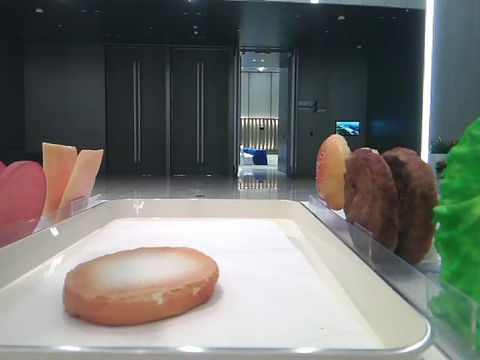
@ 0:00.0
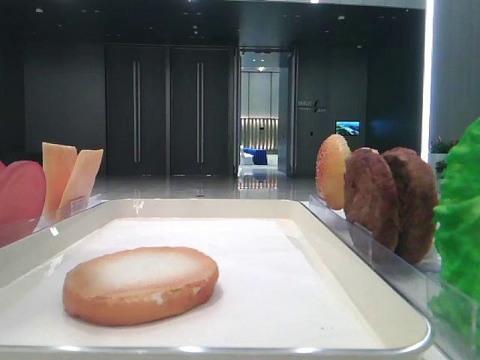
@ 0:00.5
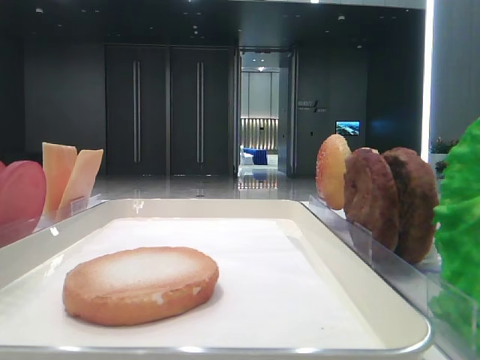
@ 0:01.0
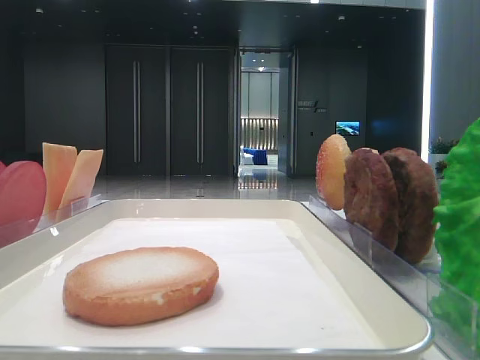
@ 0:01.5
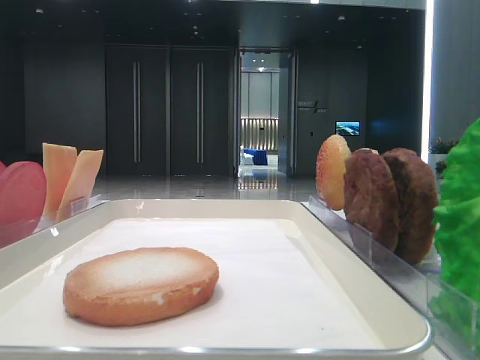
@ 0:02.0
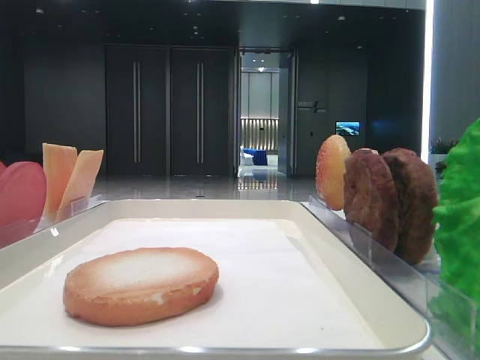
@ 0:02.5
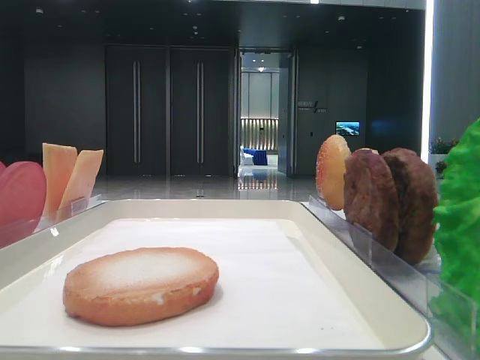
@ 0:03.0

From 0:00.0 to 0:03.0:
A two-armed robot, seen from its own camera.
From 0:00.0 to 0:01.5: The left gripper heads to the left and backward, covering roughly 15 cm.

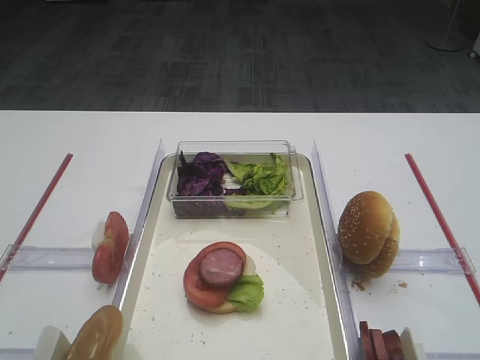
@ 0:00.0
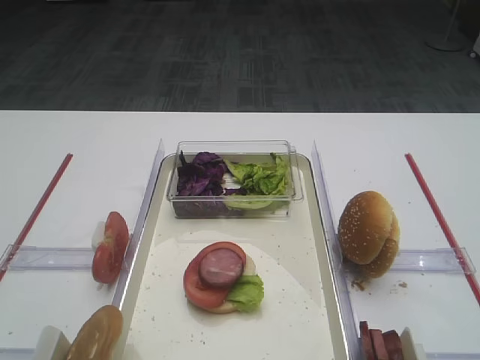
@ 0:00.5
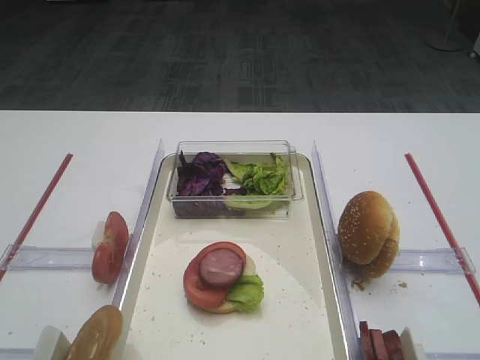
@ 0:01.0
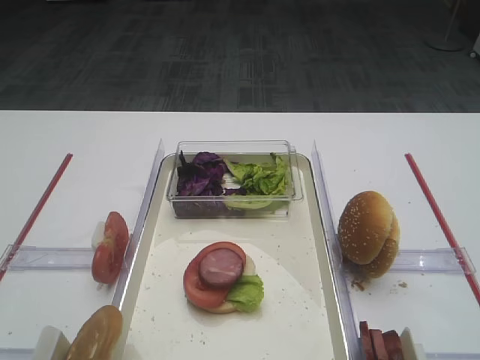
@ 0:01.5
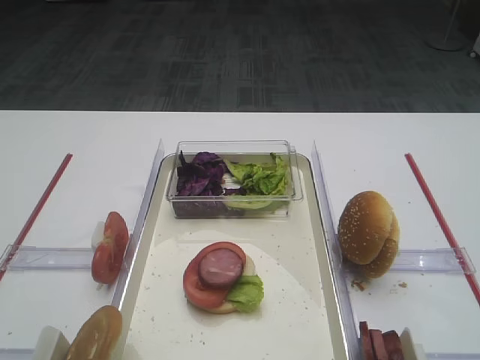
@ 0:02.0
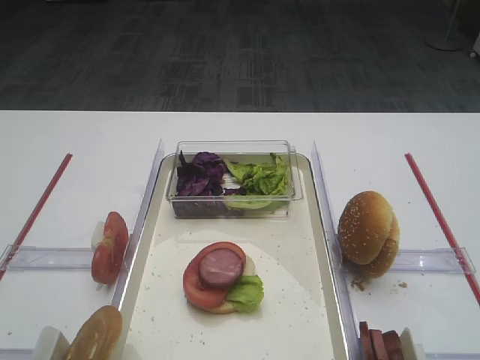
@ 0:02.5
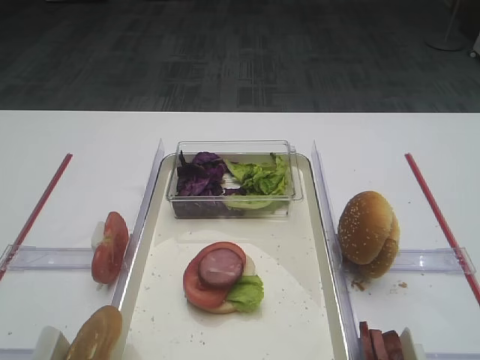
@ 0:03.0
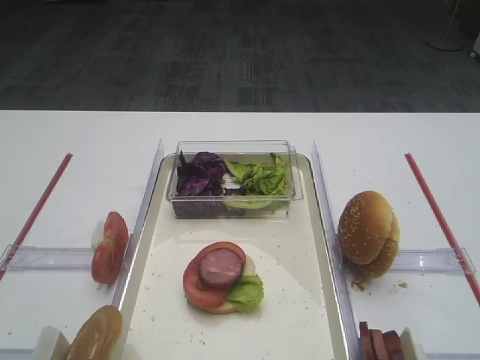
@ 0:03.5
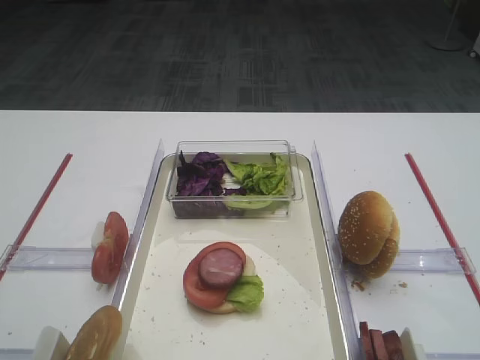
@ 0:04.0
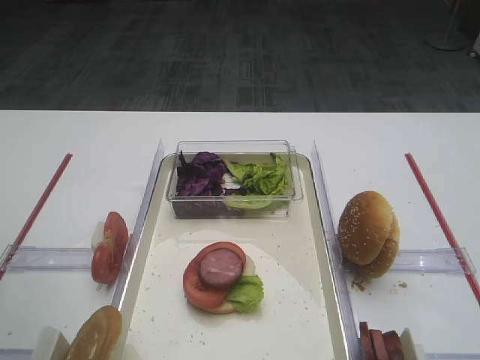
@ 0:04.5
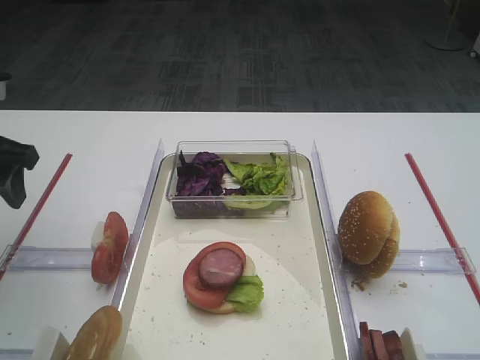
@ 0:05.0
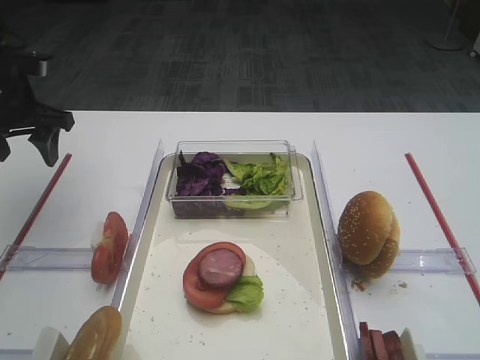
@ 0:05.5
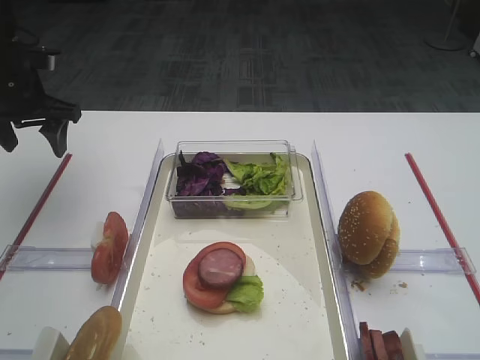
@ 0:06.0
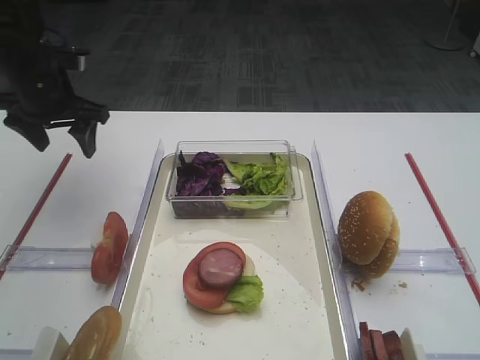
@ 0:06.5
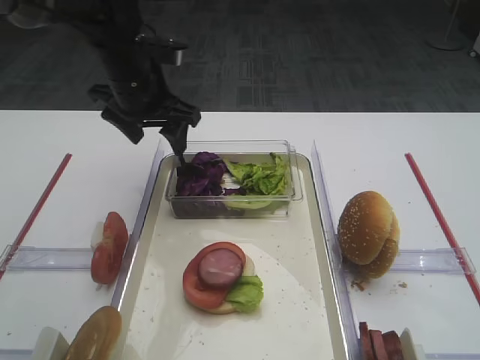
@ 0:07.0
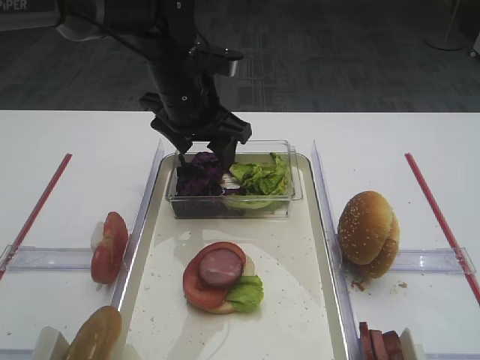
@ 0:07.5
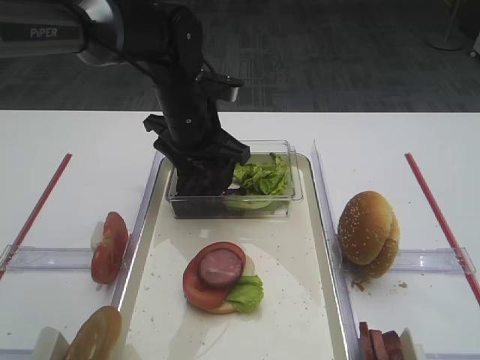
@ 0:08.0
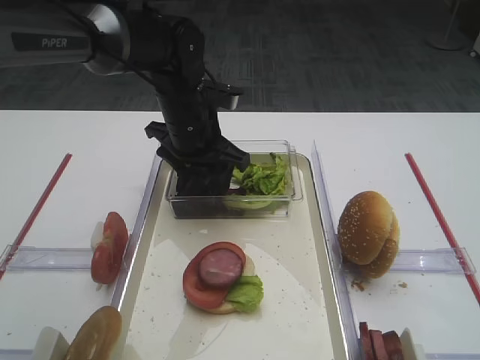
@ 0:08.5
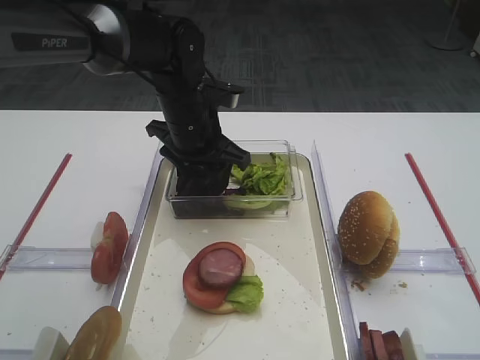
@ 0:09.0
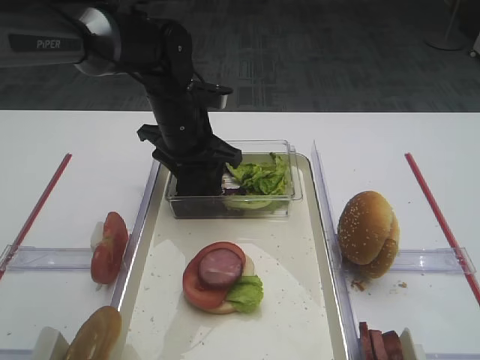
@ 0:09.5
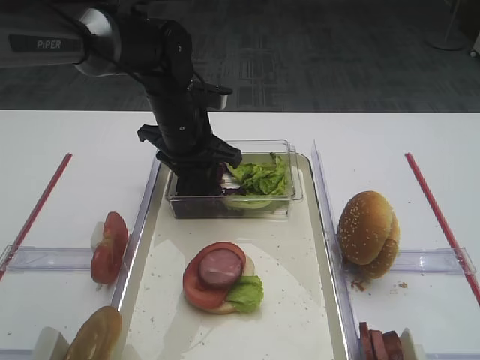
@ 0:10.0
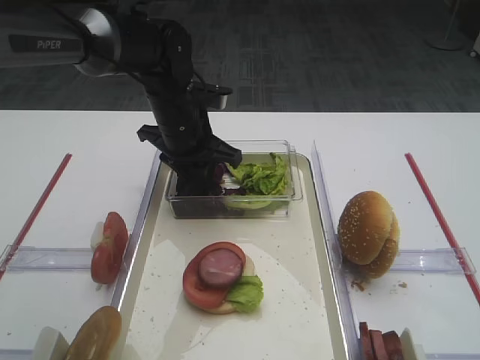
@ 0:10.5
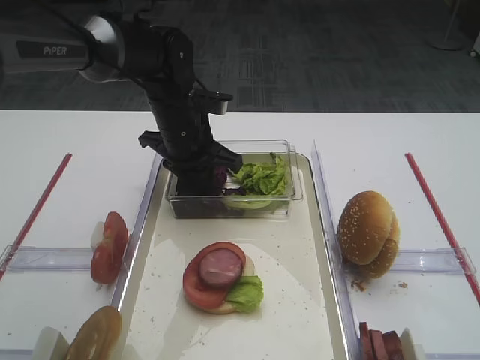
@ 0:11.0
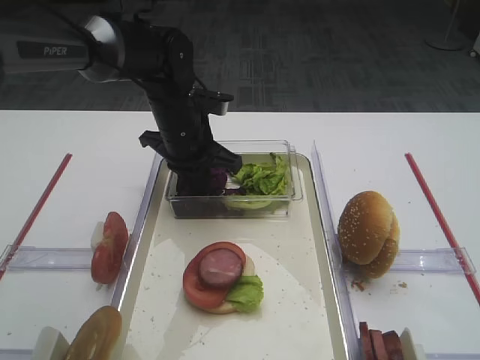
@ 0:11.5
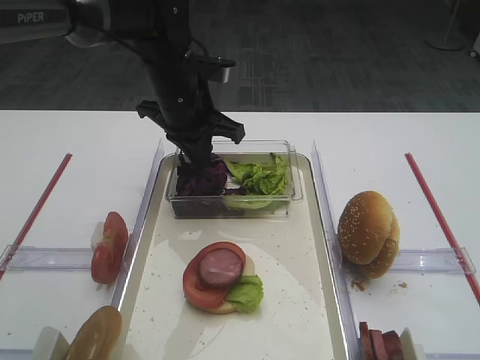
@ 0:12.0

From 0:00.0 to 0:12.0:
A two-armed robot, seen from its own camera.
From 0:04.0 to 0:06.0: The left gripper moves forward, roughly 35 cm.
From 0:06.0 to 0:08.0: The left gripper travels to the right by some 25 cm.
From 0:08.0 to 0:10.0: There are only small adjustments of the grippers.
From 0:10.0 to 0:12.0: The left gripper closes.

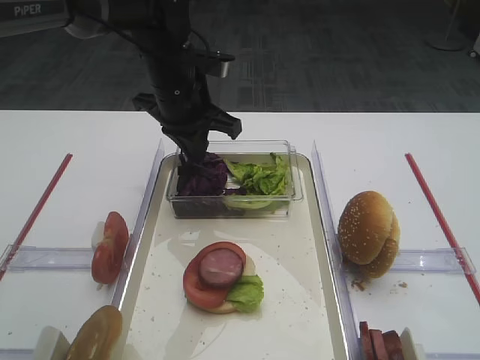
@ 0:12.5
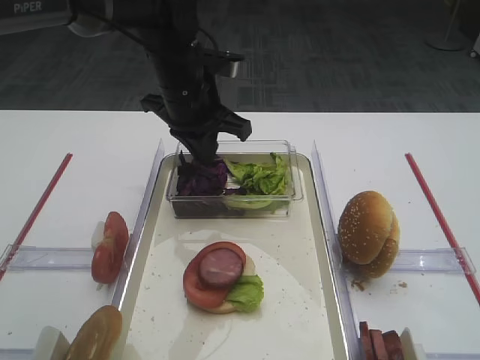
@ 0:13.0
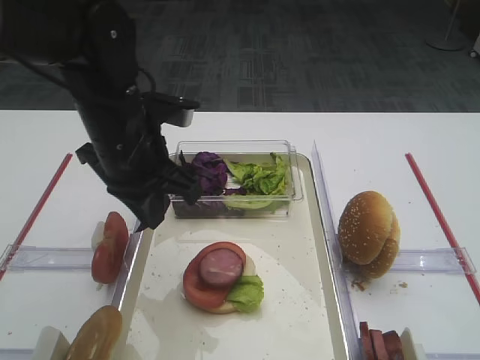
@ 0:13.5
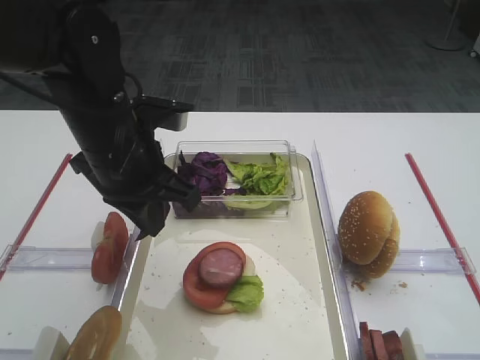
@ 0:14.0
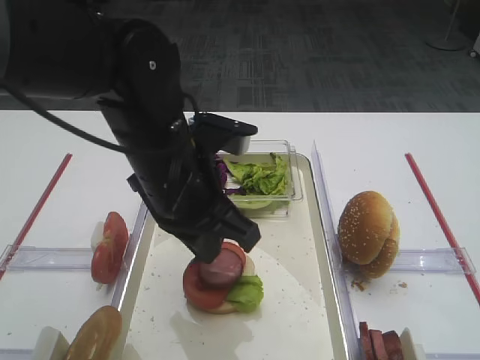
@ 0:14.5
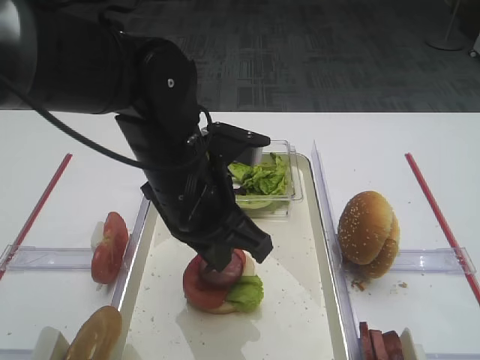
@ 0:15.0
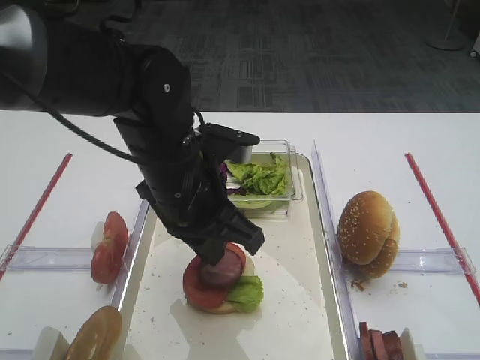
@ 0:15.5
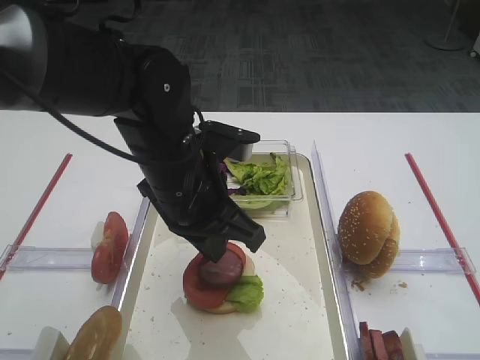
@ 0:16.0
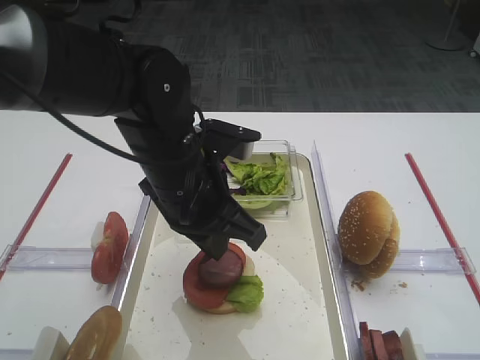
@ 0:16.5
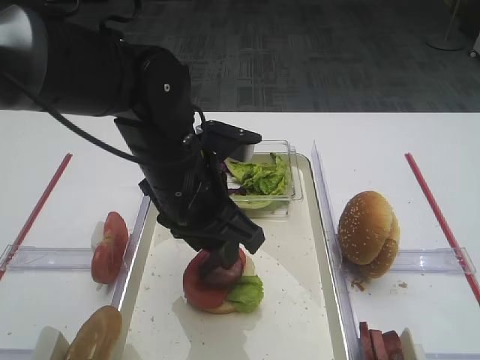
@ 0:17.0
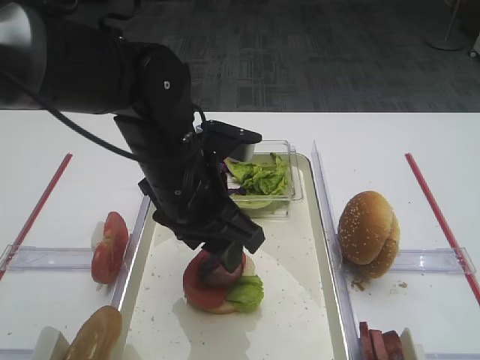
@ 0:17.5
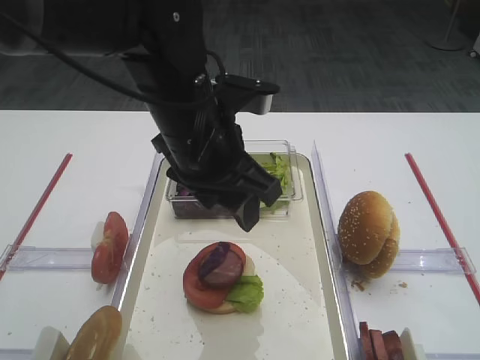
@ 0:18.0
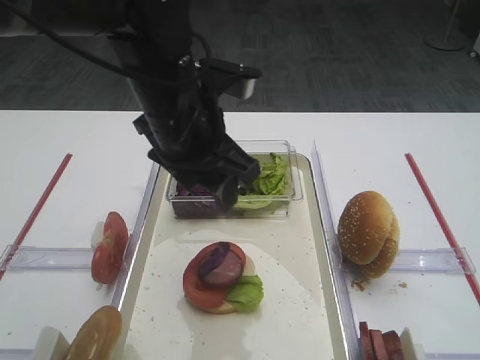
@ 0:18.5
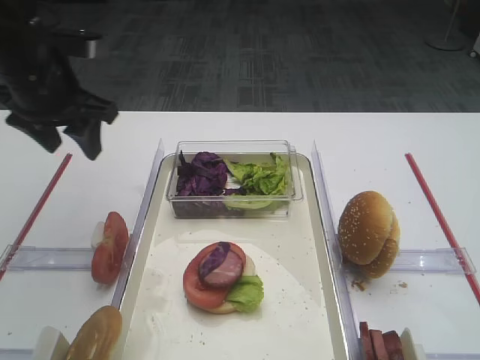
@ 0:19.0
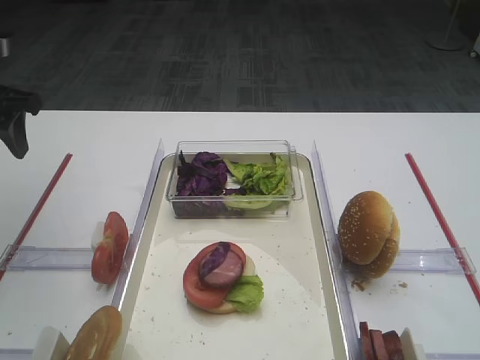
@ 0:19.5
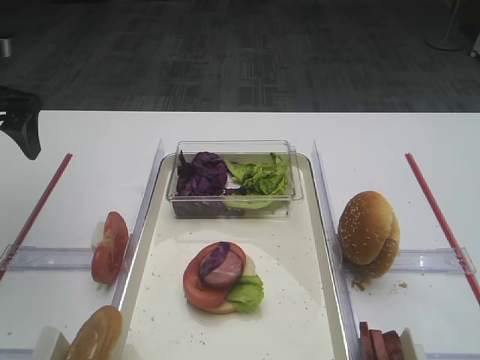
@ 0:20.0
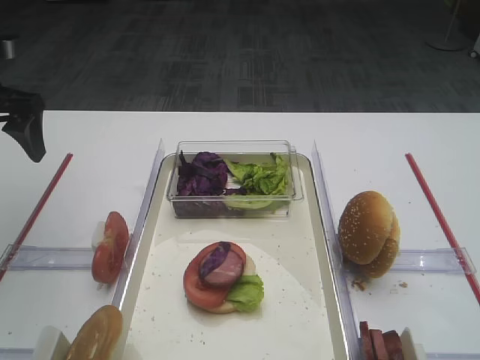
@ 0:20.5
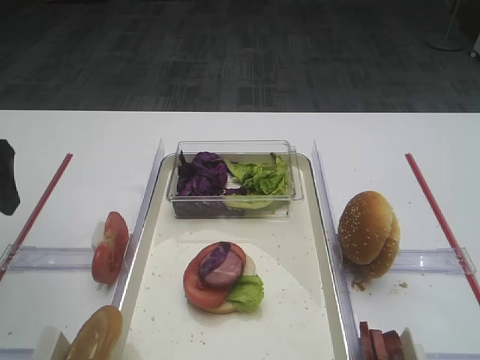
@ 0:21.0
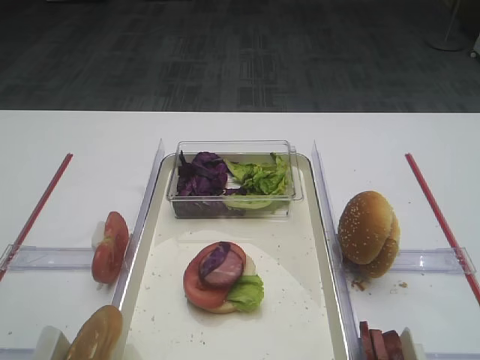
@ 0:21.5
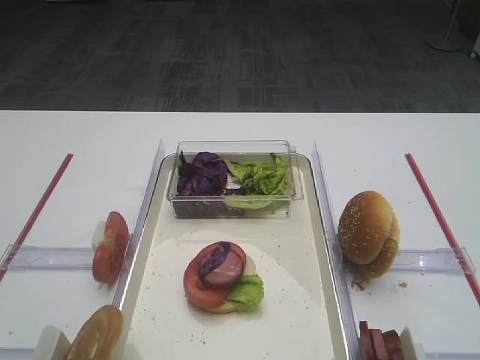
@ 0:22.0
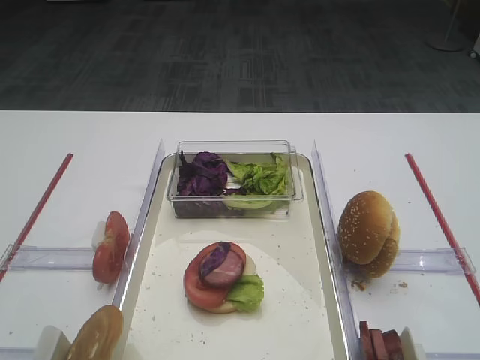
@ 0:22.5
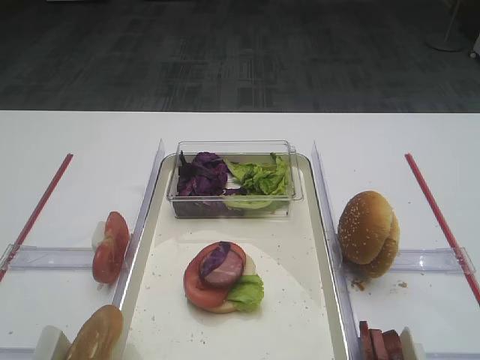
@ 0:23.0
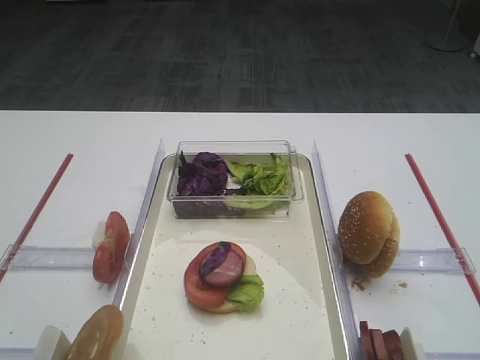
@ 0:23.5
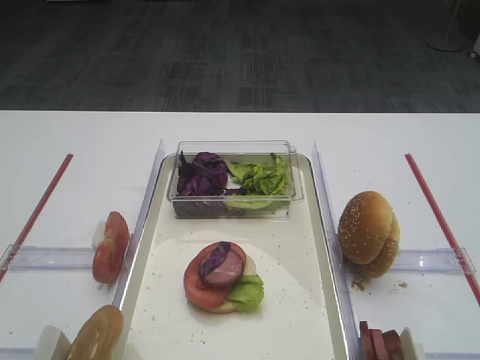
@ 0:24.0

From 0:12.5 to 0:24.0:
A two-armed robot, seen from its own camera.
Step, from 0:12.5 to 0:17.5: Place the purple cabbage on the cutlet with the left gripper.
From 0:12.5 to 0:14.5: The left gripper shifts some 15 cm backward.
From 0:14.5 to 0:16.5: The grippers stay close to where they were, moving slightly.
From 0:16.5 to 0:18.5: The left gripper shifts some 5 cm upward, and opens up.
From 0:18.5 to 0:20.0: The left gripper is displaced to the left by approximately 25 cm.
From 0:20.0 to 0:22.0: The left gripper goes roughly 30 cm backward.
